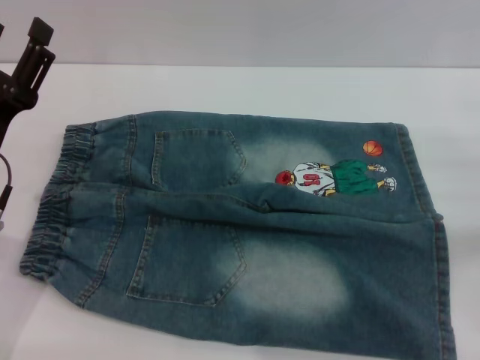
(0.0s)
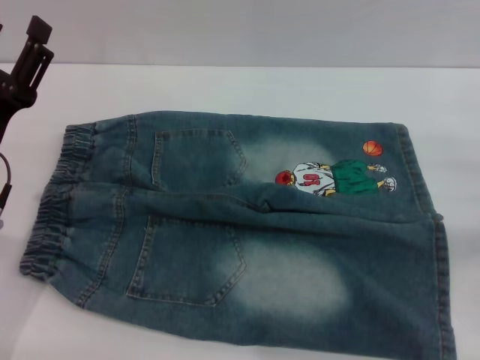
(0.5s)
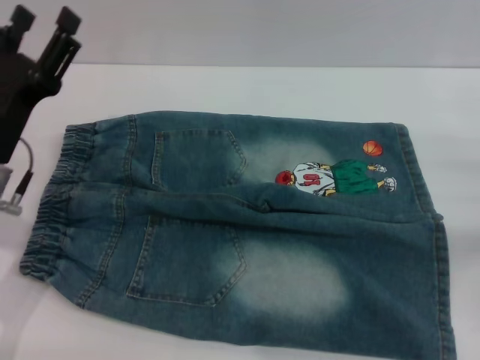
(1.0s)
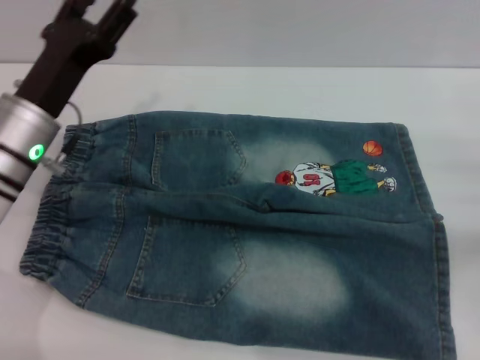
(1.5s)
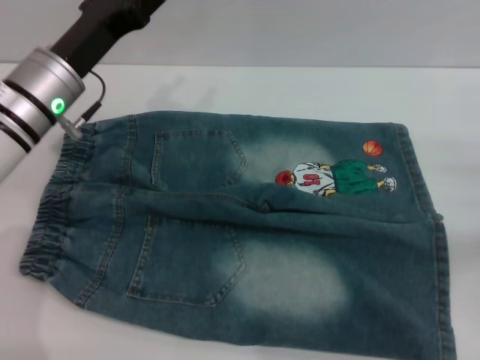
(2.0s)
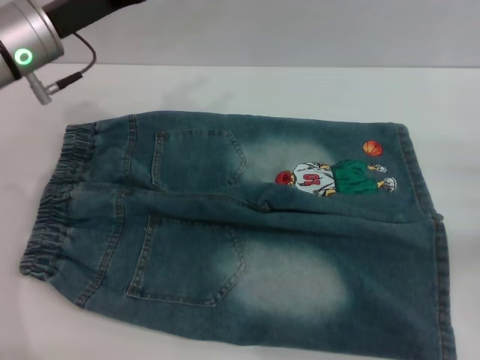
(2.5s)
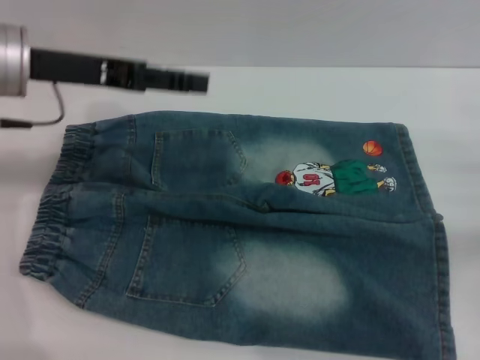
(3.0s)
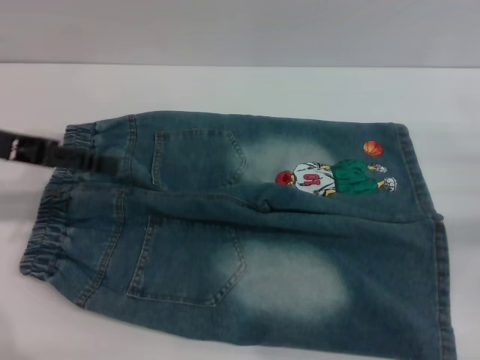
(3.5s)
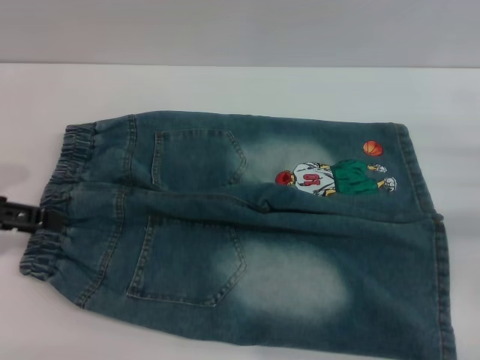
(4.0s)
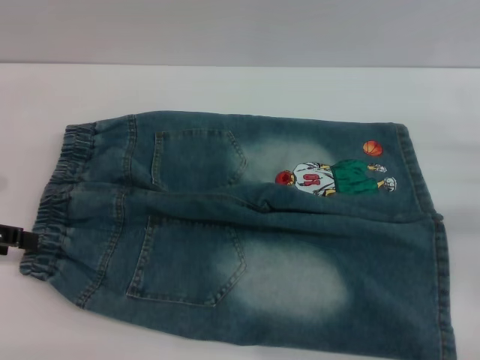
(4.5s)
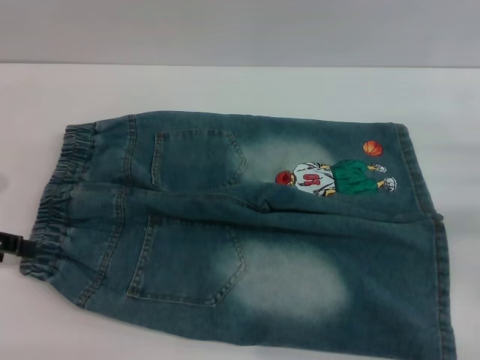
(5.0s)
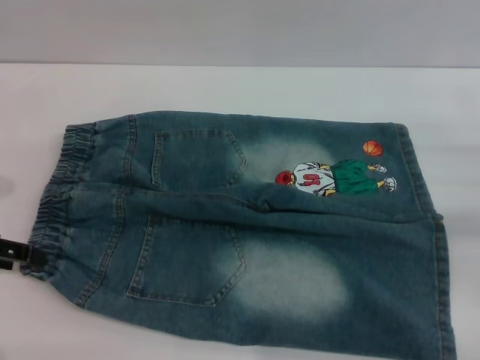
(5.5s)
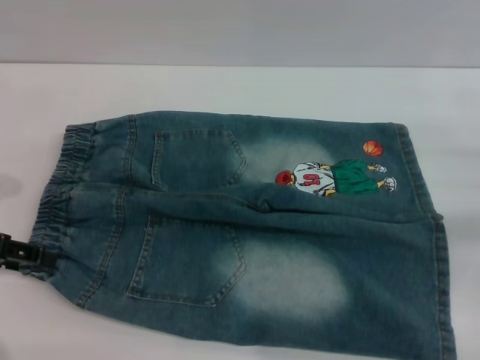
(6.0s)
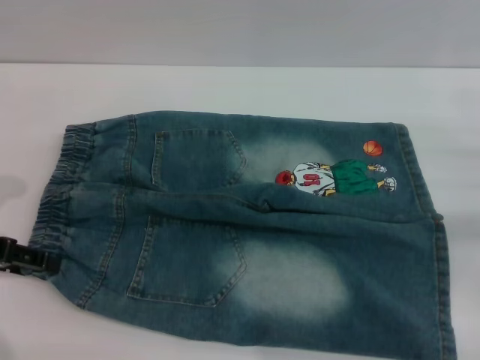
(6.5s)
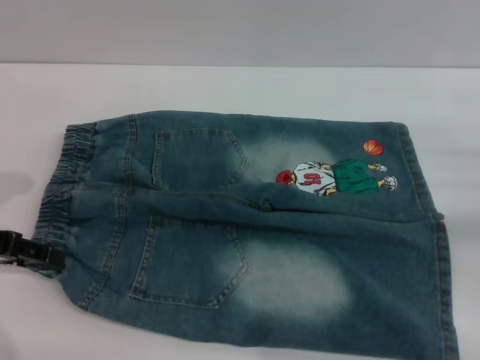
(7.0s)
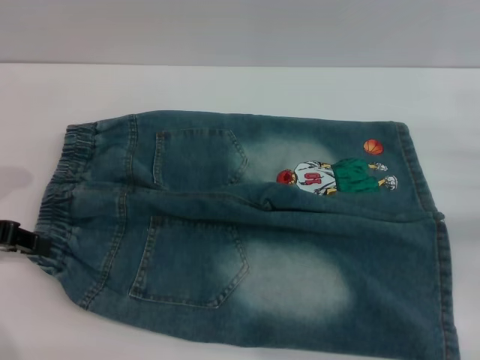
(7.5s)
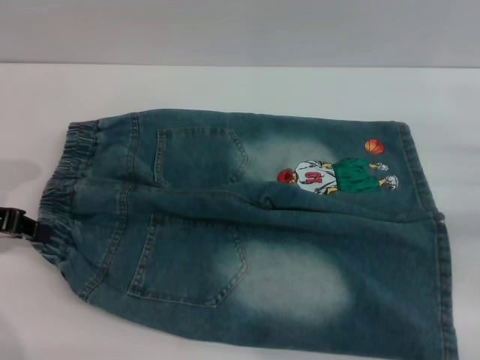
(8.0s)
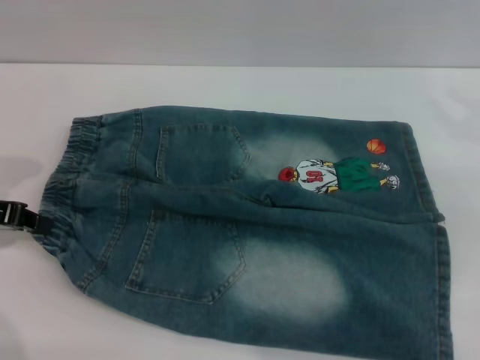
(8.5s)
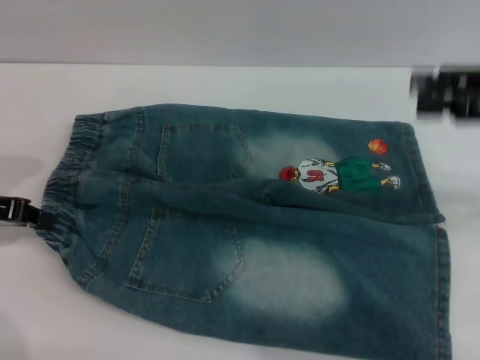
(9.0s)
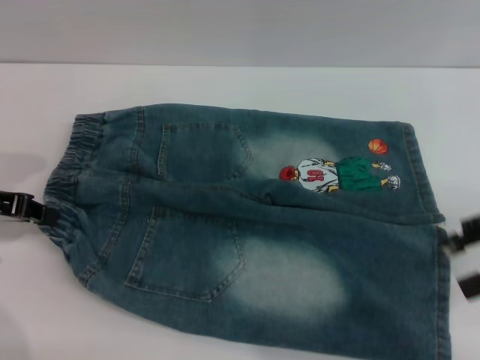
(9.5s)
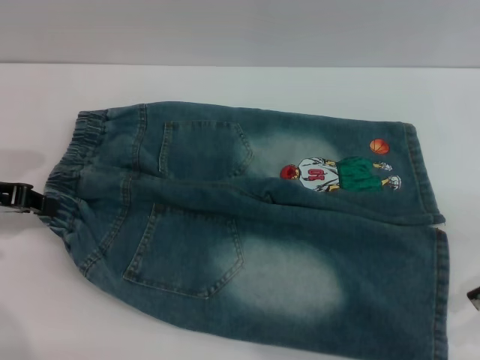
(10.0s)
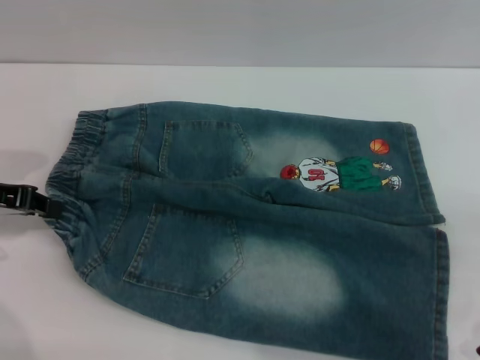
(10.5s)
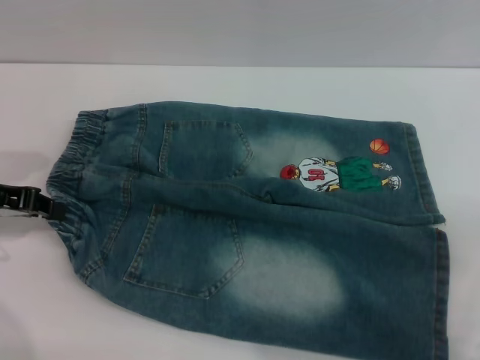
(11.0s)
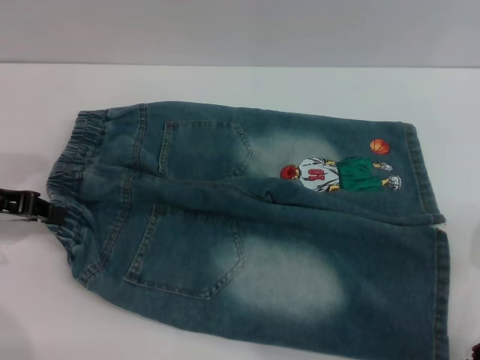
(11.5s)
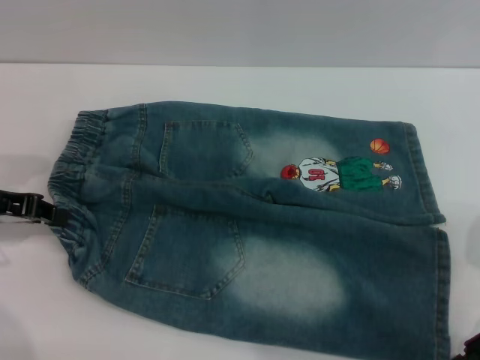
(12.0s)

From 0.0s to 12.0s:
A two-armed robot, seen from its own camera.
From 0.0s to 2.0s: The left gripper heads forward and to the right, covering roughly 10 cm.
From 2.0s to 4.0s: The left gripper heads to the left and backward, covering some 15 cm.
From 4.0s to 6.0s: The grippers make only small movements.
From 6.0s to 8.0s: The left gripper closes.
From 8.0s to 10.0s: The right gripper heads upward, covering about 10 cm.
From 10.0s to 12.0s: The right gripper moves downward, some 5 cm.

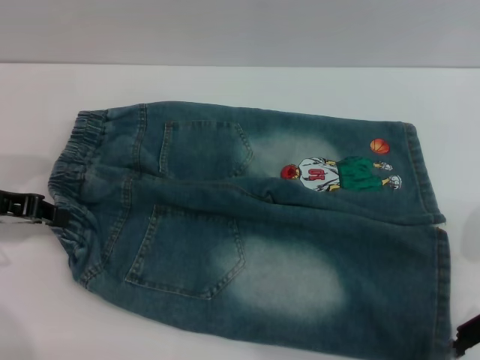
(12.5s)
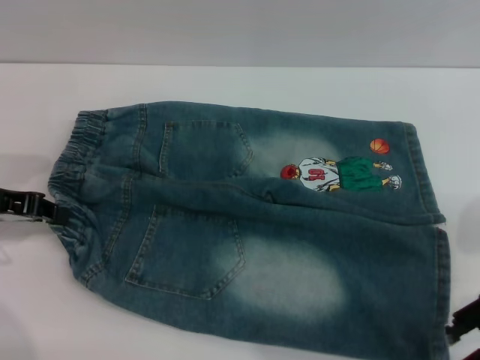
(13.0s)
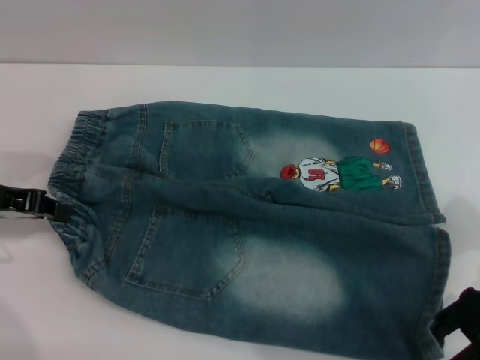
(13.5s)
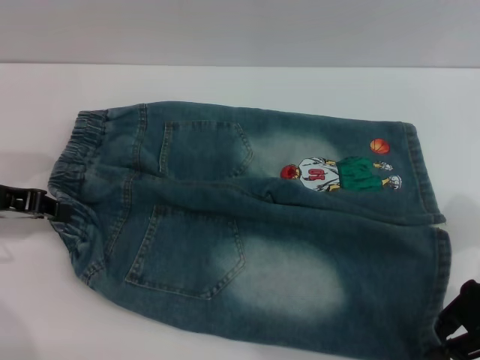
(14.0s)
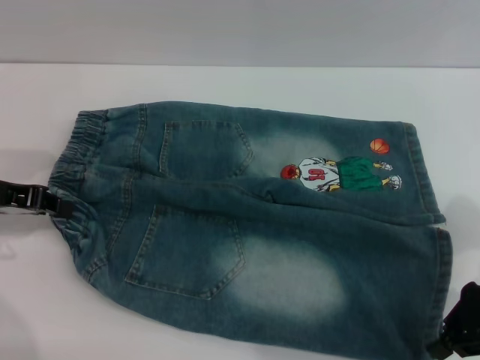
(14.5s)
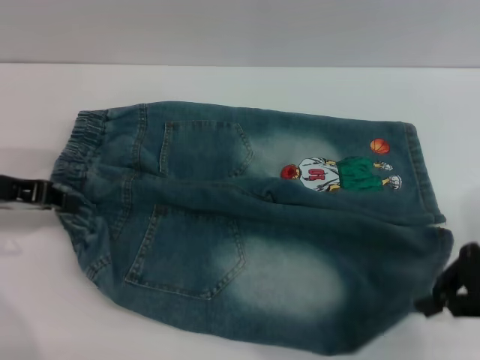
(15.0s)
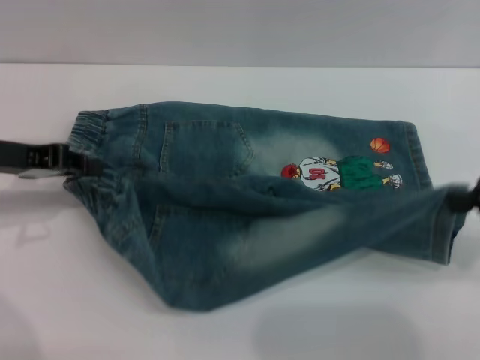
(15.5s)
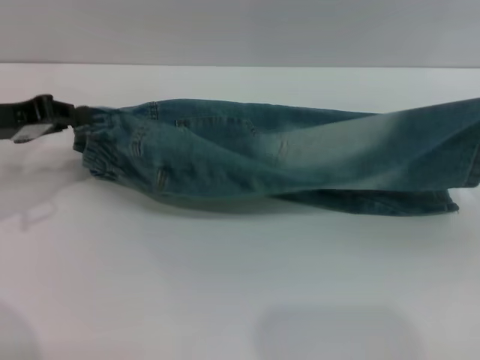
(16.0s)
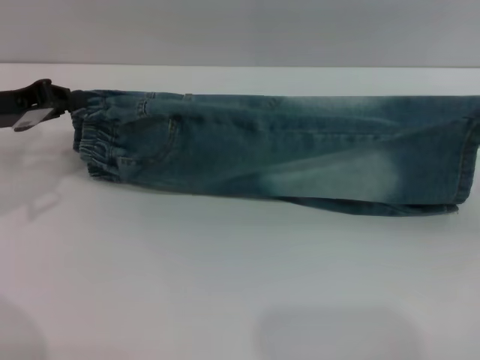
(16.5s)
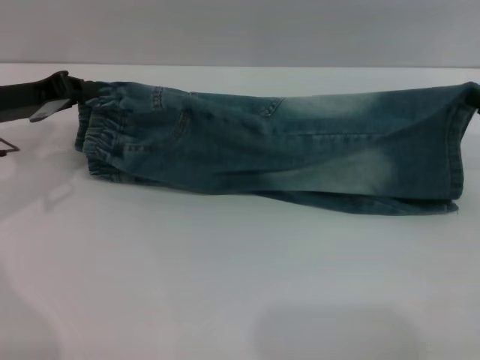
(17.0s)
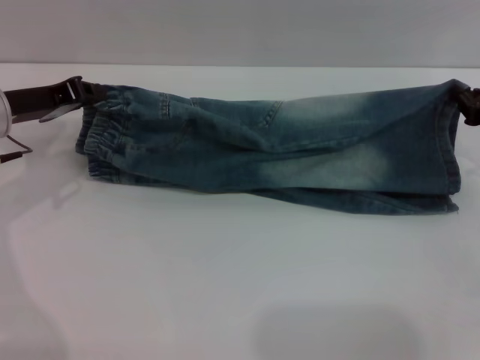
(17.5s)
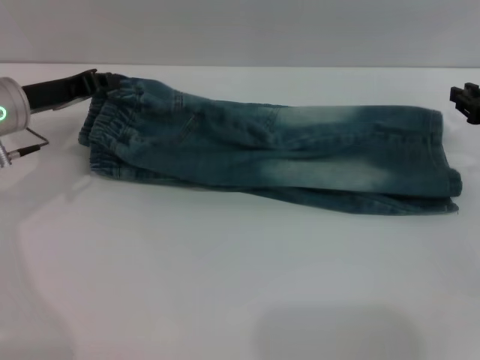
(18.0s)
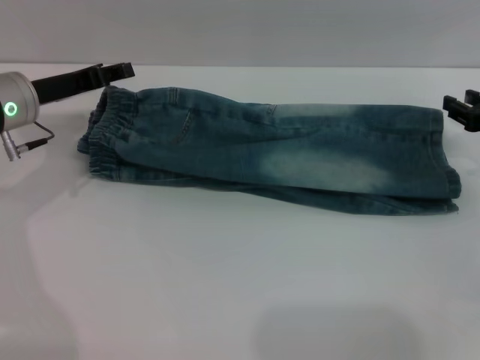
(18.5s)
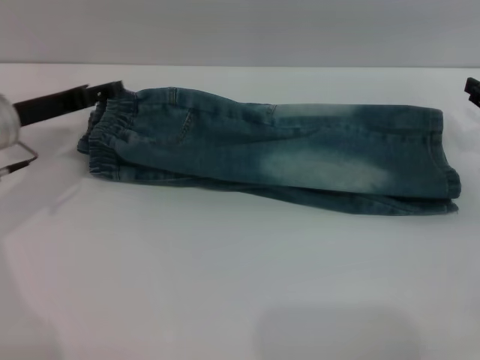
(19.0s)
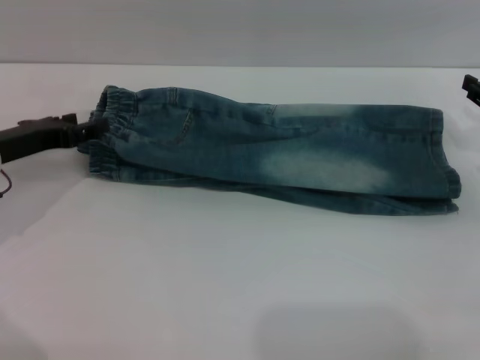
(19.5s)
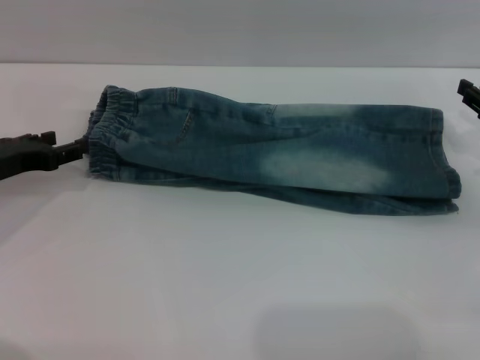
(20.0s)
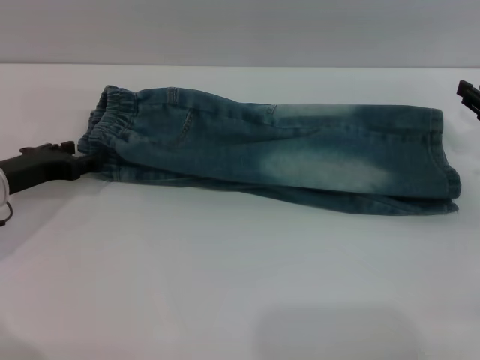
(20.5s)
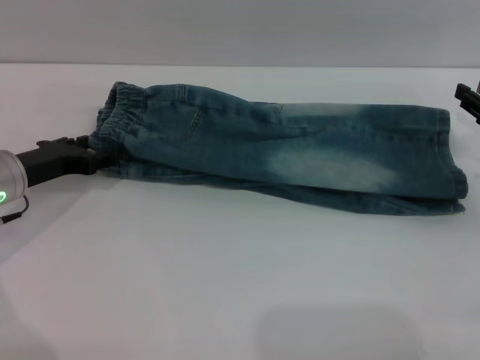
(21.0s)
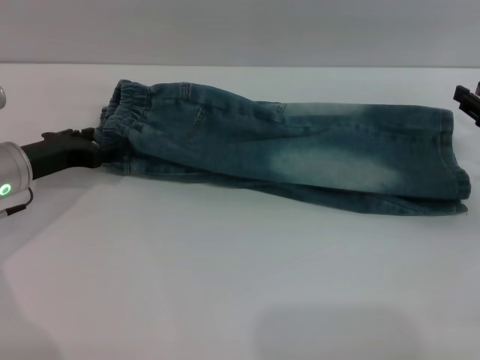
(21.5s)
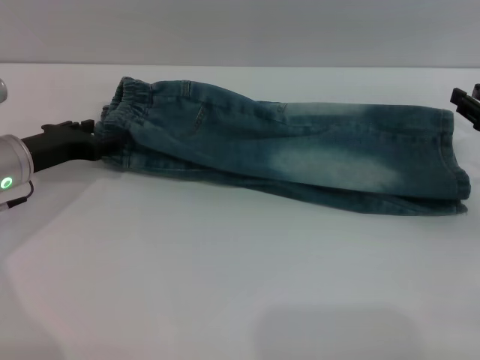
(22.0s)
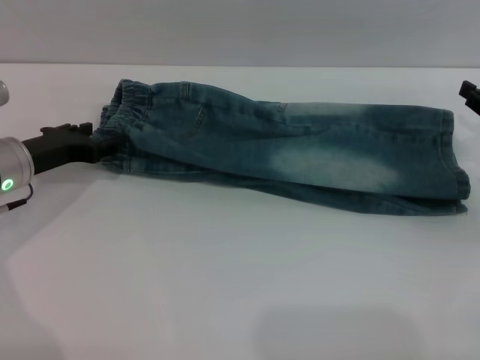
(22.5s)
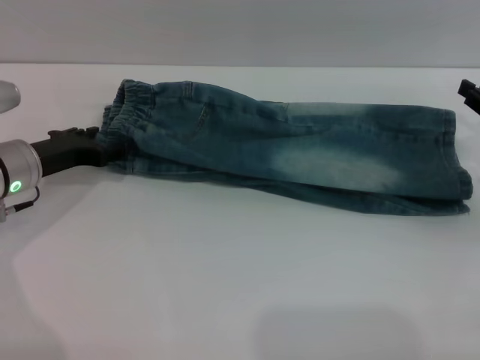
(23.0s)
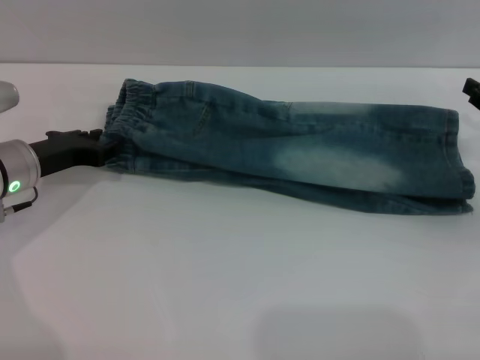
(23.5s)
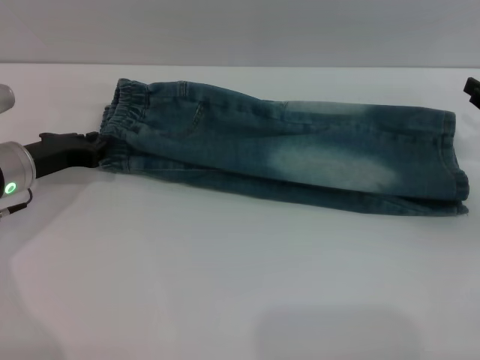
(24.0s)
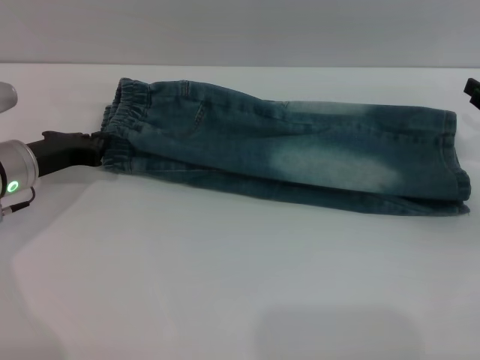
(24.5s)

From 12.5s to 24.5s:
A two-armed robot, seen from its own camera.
Step, from 12.5s to 19.0s: Fold the bottom of the pants upward with both grippers.
From 12.5s to 14.5s: The right gripper closes its fingers.
From 14.5s to 16.5s: The right gripper heads to the right, covering some 10 cm.
From 16.5s to 18.5s: The right gripper goes approximately 5 cm forward, and opens up, while the left gripper shifts roughly 5 cm to the right.
From 18.5s to 20.5s: The left gripper heads backward and downward, covering approximately 10 cm, and opens up.
From 20.5s to 22.5s: The grippers stay close to where they were, moving slightly.
From 22.5s to 24.5s: The left gripper closes.

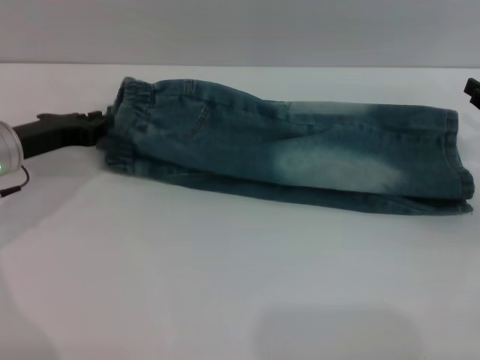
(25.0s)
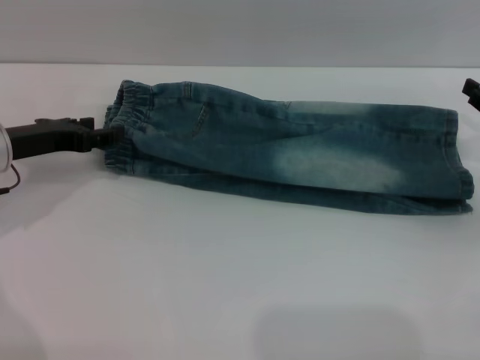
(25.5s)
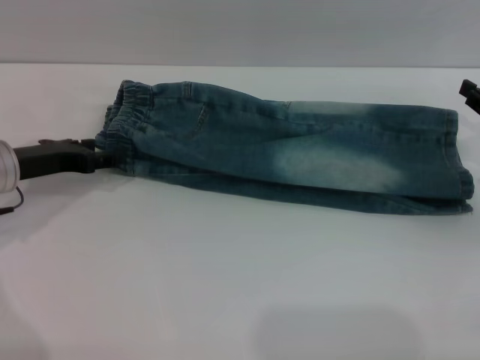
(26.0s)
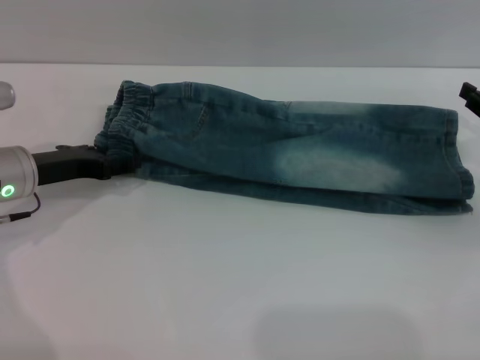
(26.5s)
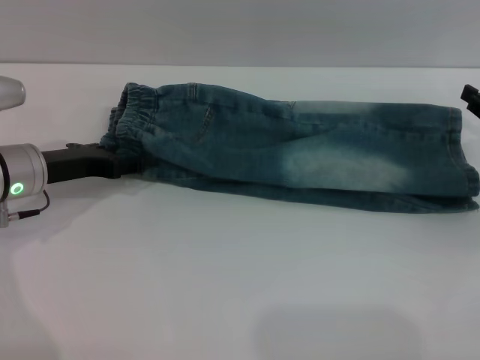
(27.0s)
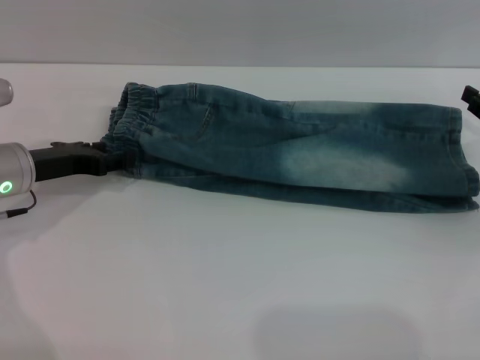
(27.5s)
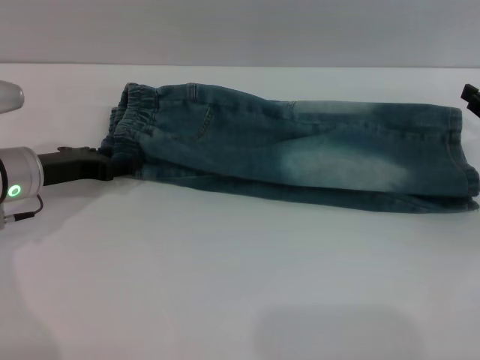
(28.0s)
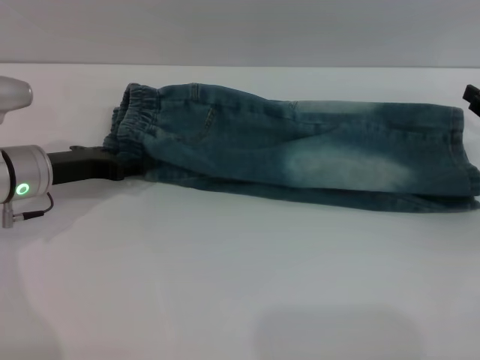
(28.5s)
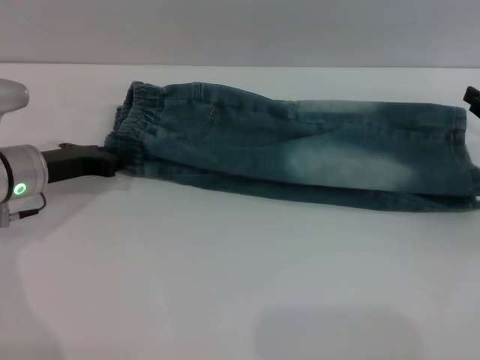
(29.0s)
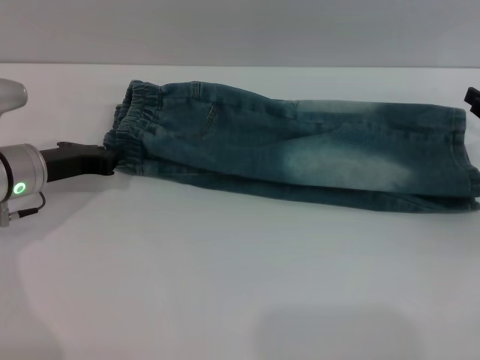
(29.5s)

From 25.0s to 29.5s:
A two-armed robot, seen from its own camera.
From 25.0s to 27.0s: The left gripper opens up.
From 27.0s to 29.5s: The left gripper closes its fingers.
